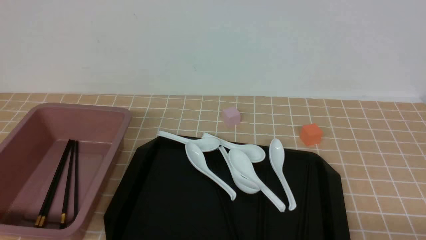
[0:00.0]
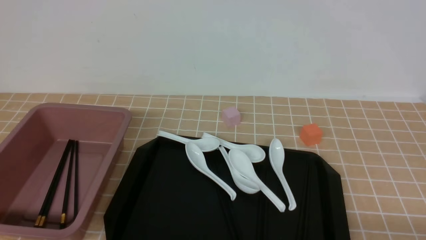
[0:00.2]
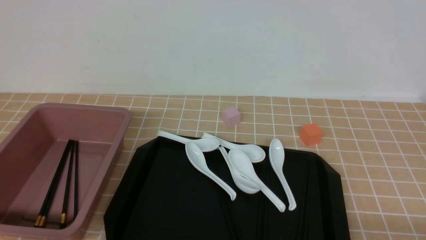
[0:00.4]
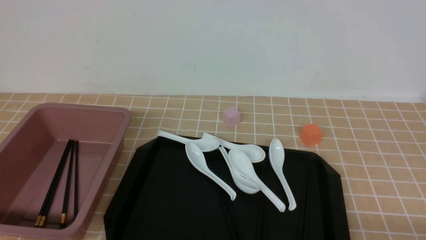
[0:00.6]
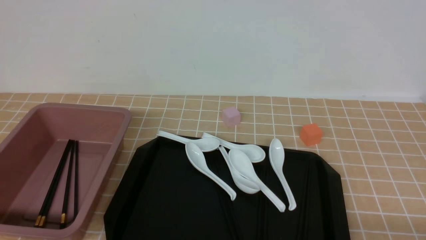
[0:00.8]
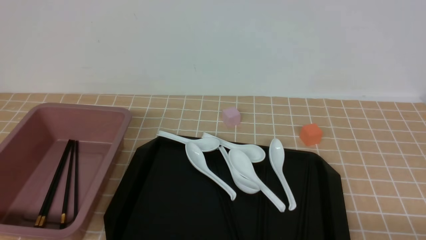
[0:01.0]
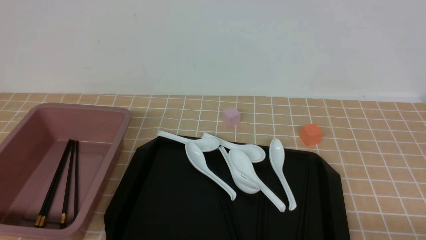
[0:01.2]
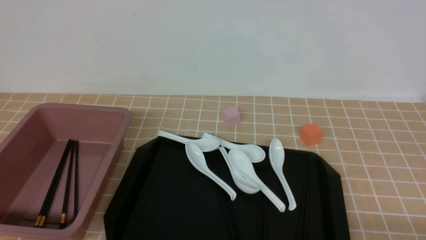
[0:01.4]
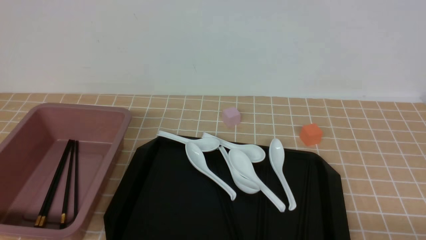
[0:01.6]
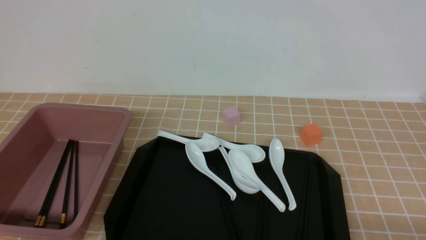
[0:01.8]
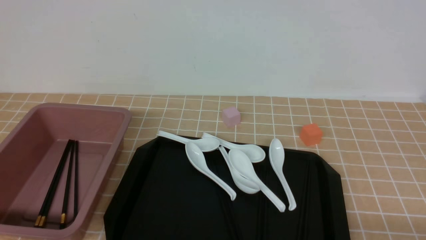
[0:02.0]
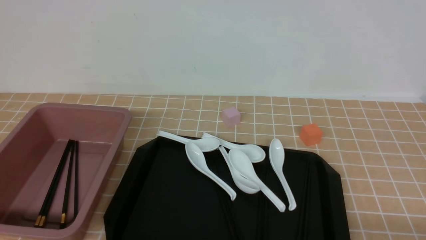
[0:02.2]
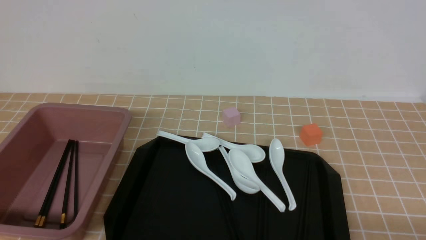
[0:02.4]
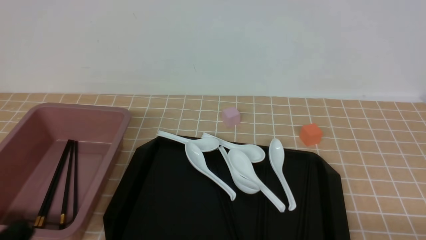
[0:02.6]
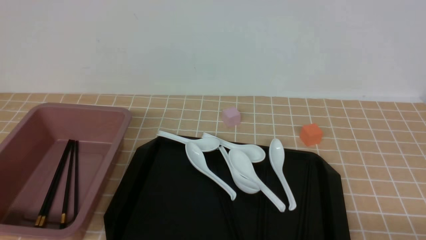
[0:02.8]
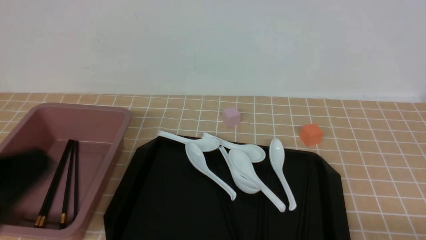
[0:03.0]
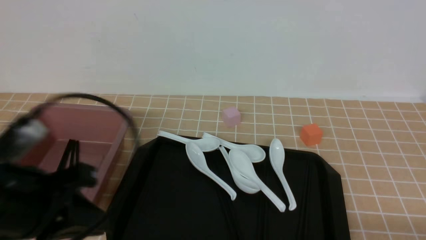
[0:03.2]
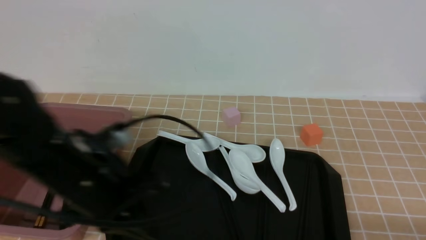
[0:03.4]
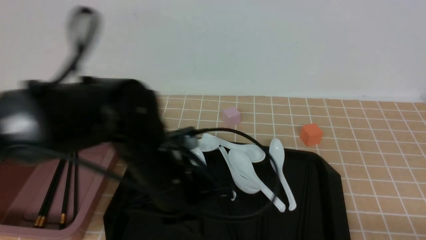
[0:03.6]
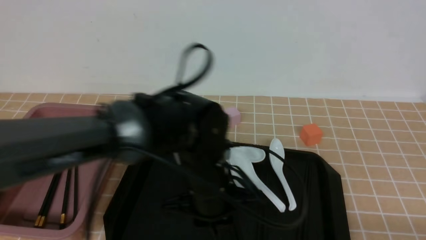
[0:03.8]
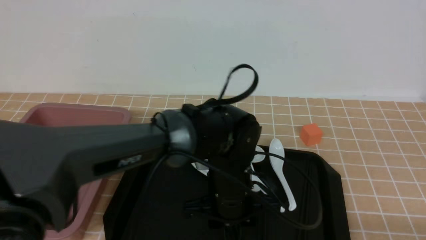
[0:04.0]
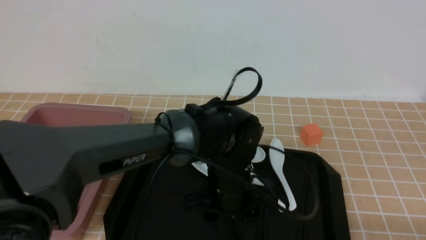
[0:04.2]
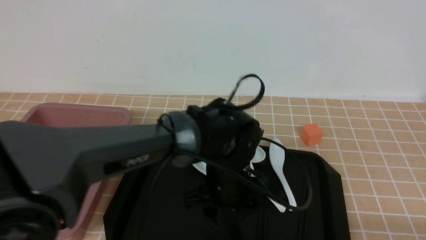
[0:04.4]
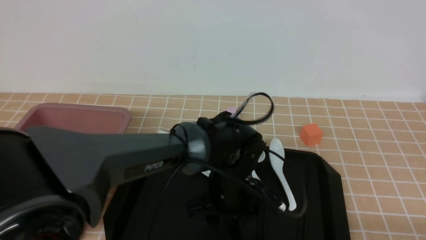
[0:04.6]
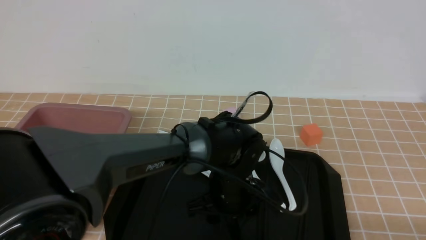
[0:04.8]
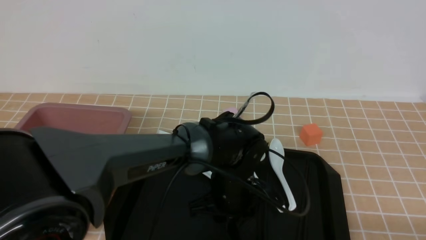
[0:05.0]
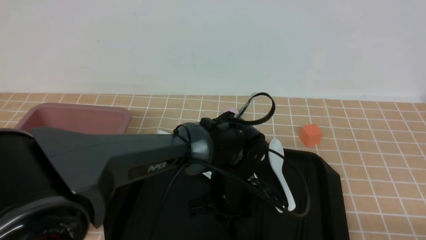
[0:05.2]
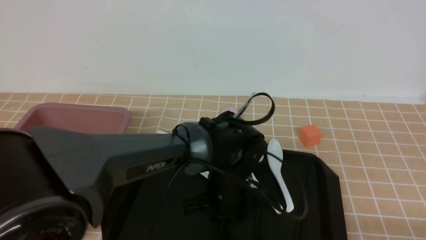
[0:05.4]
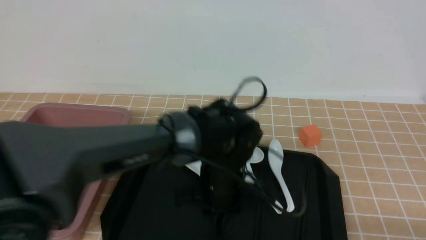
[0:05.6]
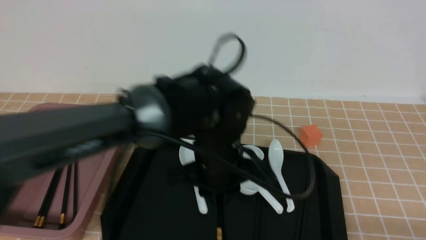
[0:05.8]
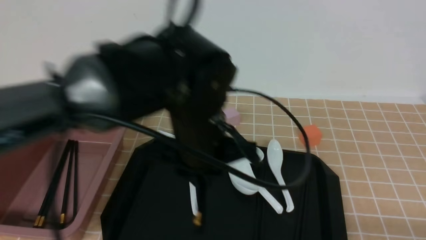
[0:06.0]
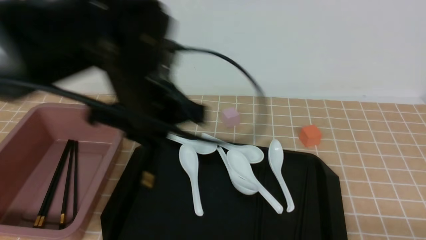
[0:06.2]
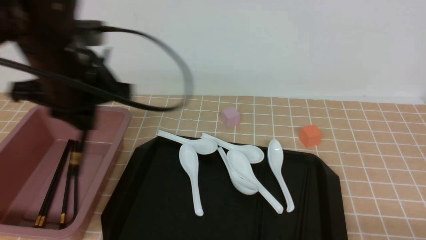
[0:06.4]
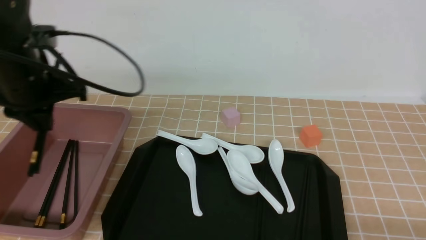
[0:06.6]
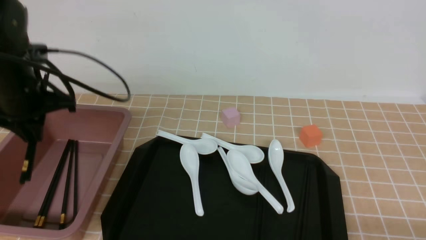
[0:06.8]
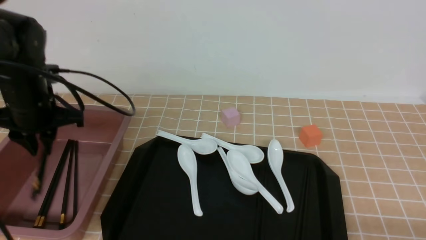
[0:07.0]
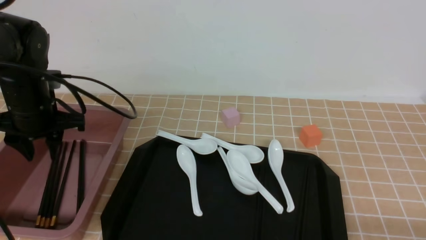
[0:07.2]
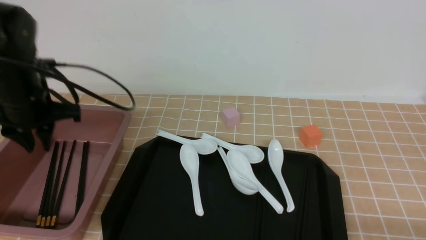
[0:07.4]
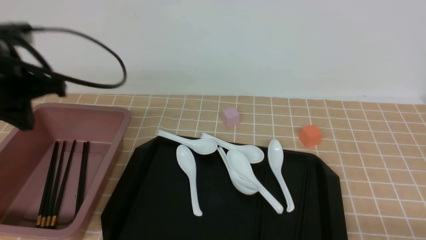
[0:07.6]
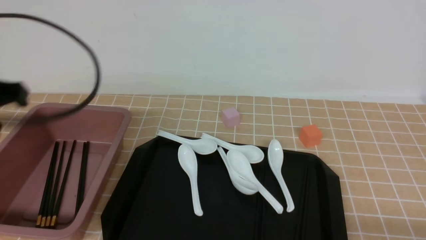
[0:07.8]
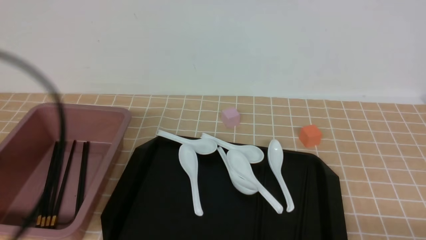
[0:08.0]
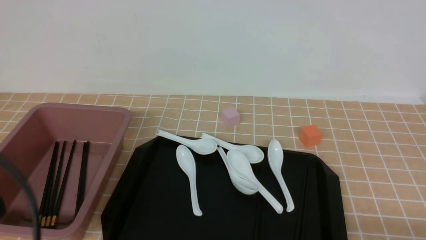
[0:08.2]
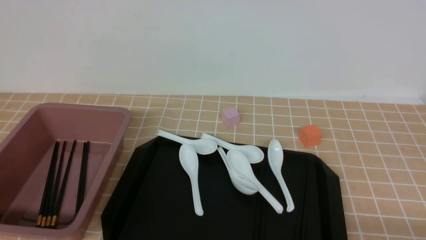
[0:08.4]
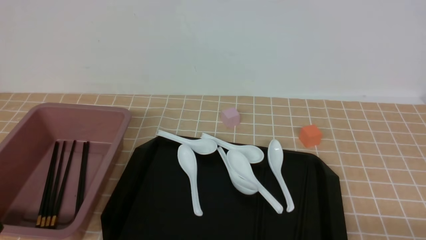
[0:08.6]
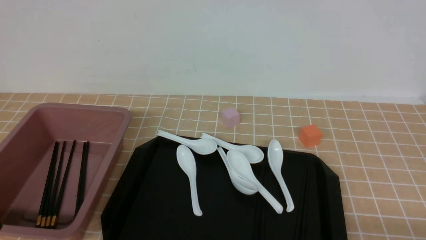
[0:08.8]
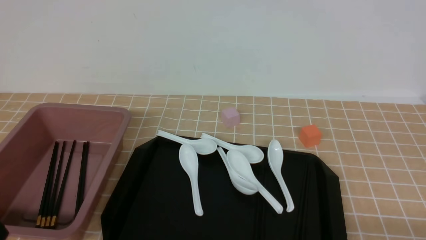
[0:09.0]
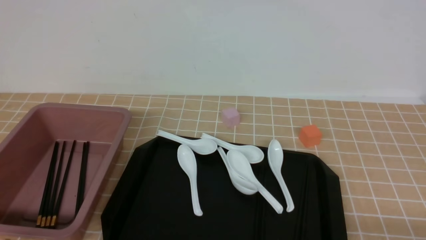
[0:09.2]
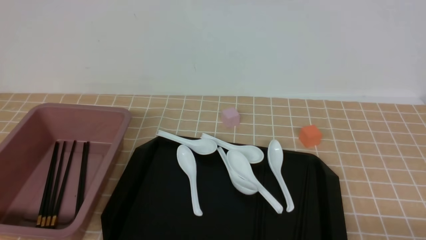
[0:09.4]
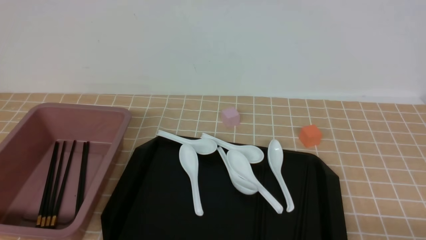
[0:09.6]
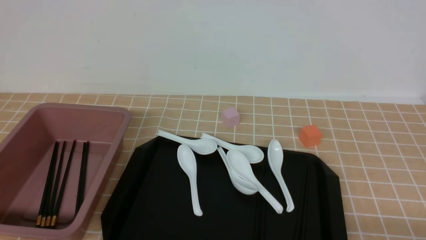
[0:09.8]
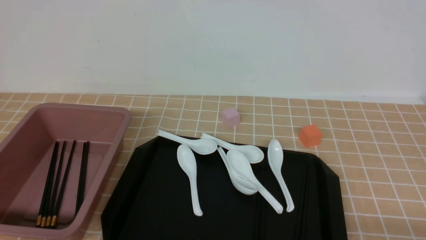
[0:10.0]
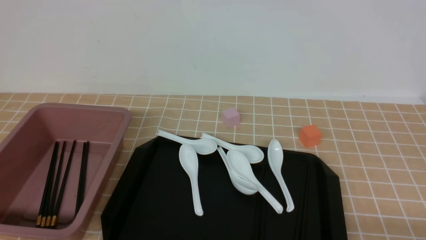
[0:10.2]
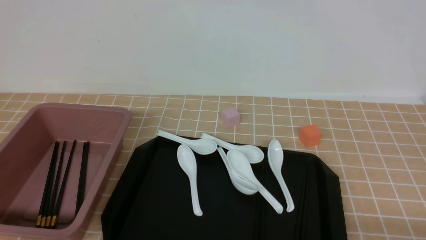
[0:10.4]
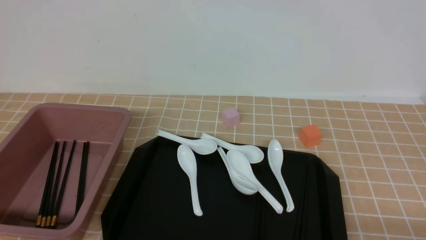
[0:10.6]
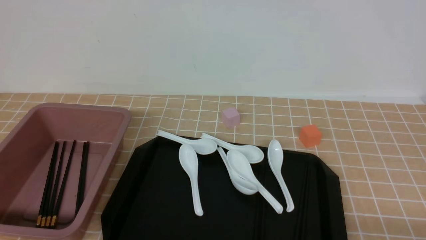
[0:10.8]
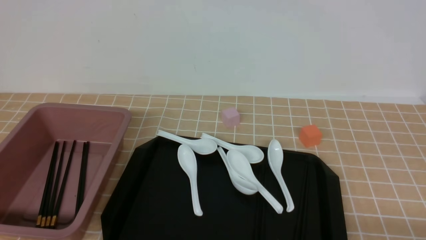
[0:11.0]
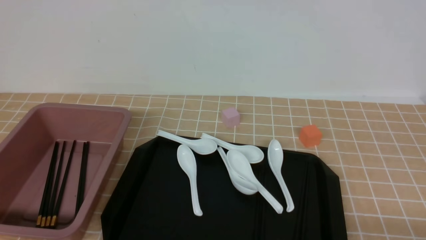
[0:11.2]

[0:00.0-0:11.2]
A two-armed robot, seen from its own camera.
Step, 0:00.0 to 0:06.0: use the left arm to grab a pair of chopsticks.
Step, 0:06.2 to 0:07.6: use the left arm to put the chopsticks into the lunch box.
0:01.6 to 0:03.2: The left gripper travels upward by roughly 15 cm.
0:03.2 to 0:04.8: The left gripper goes some 35 cm to the right, forward and downward, and opens its fingers.
0:04.8 to 0:06.4: The left gripper shifts roughly 25 cm upward and to the left, and closes its fingers.
0:06.4 to 0:08.0: The left gripper heads to the left and backward, covering about 20 cm, and opens, then closes again.
0:08.0 to 0:09.6: The left gripper is displaced downward and backward by about 25 cm.
0:09.6 to 0:11.2: Neither gripper changes place.

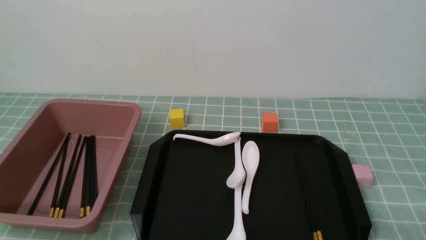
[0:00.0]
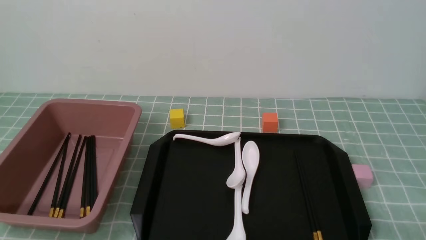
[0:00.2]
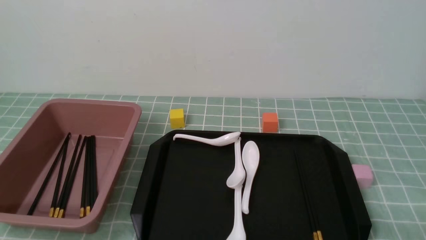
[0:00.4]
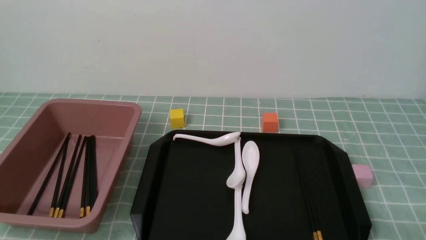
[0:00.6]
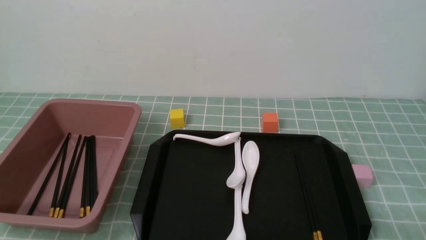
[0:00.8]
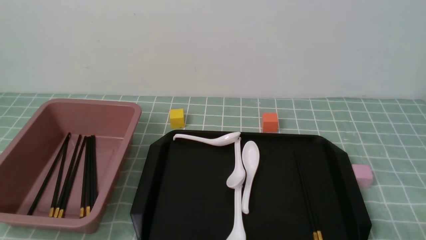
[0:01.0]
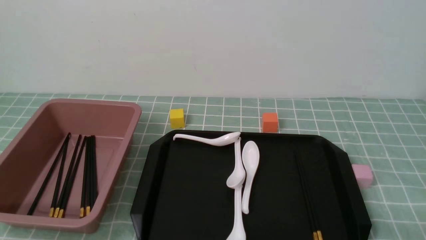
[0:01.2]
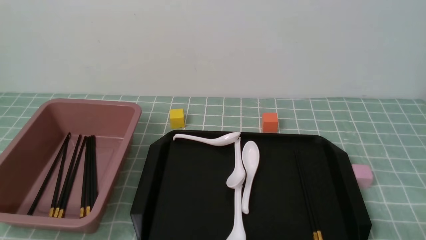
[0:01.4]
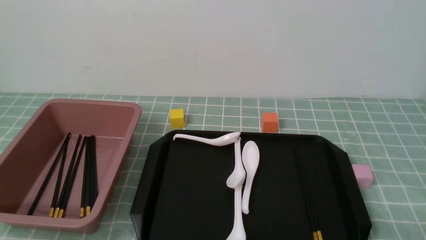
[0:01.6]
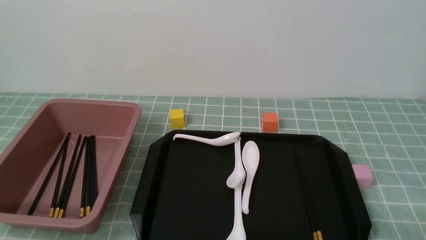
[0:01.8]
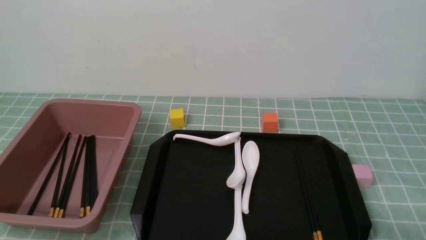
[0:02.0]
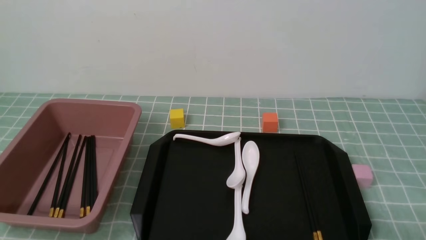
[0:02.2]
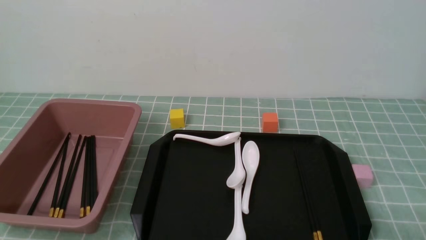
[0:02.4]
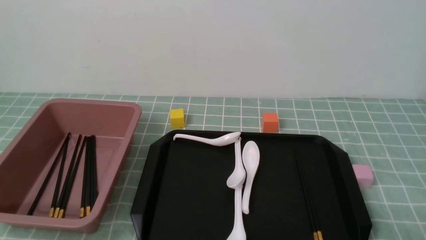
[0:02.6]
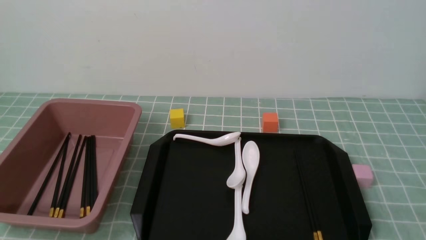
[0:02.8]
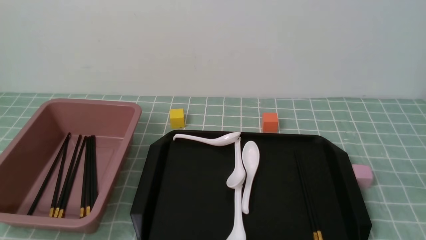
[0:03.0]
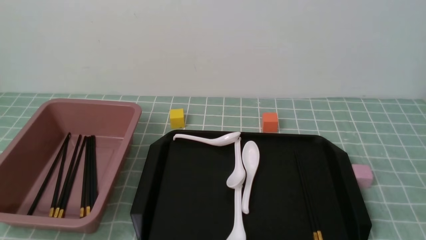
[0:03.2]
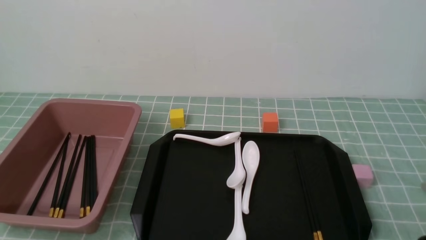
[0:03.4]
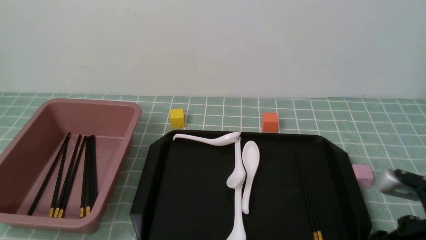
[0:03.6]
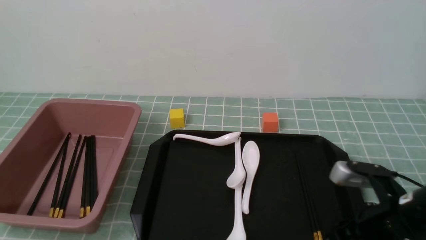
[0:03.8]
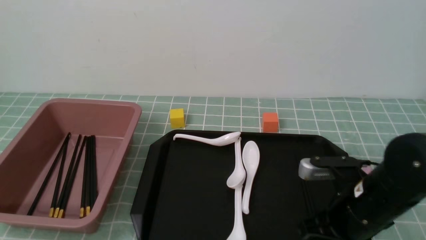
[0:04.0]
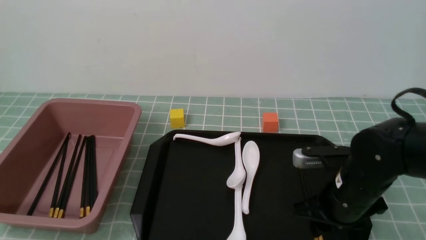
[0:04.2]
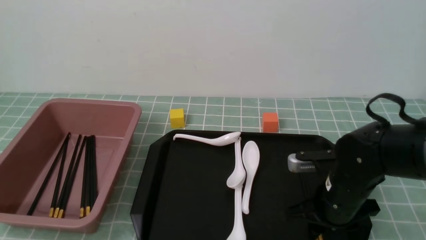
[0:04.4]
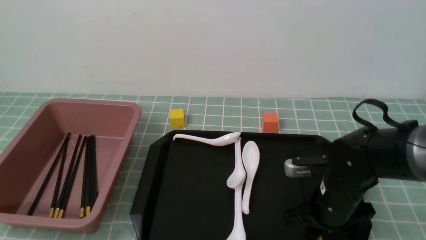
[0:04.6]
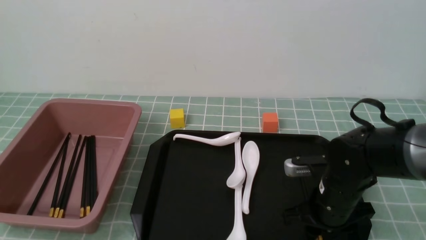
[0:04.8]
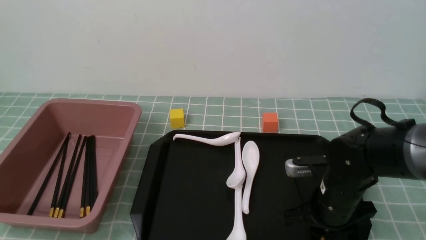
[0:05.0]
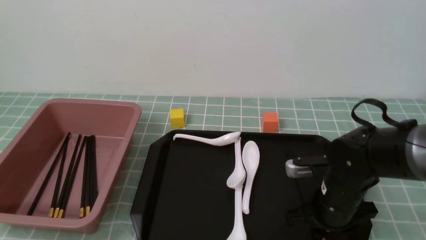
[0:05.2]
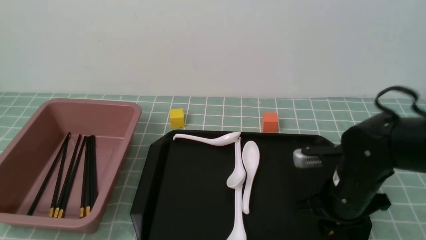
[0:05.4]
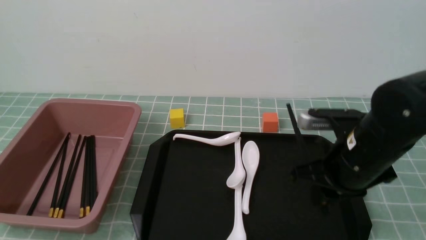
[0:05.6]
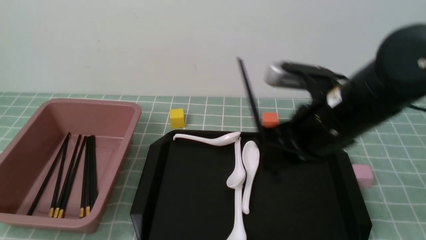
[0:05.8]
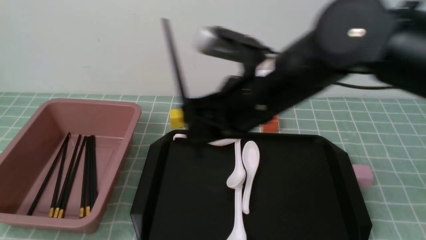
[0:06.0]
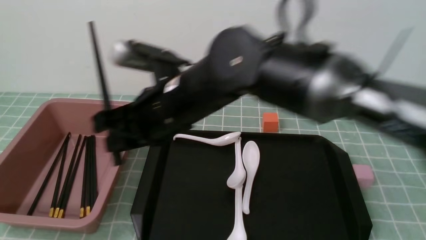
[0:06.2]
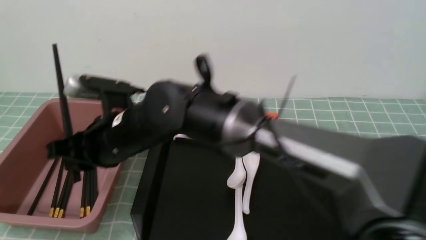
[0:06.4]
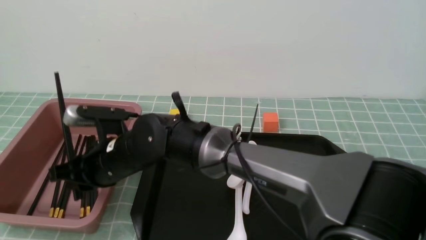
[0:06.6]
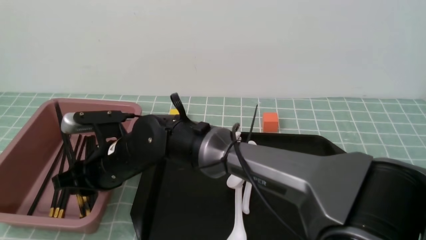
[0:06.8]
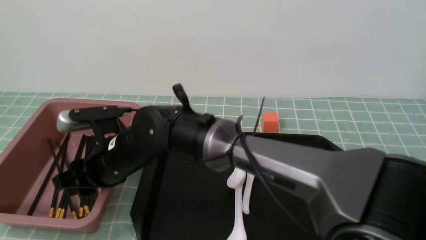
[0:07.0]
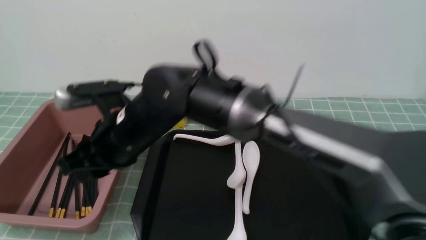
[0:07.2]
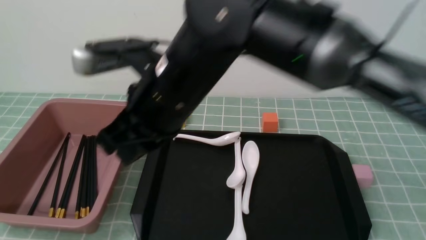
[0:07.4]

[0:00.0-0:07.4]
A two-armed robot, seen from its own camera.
Step, 0:00.0 to 0:05.8: use the right arm to grab a pair of chopsticks.
Step, 0:06.0 to 0:07.0: use the right arm to put the chopsticks into the lunch box.
0:00.0 to 0:01.4: Both grippers stay put.
0:03.0 to 0:04.4: The right gripper is displaced forward, to the left and downward by some 25 cm, and opens its fingers.
0:04.4 to 0:06.0: The right gripper shifts about 20 cm upward and to the left, and closes its fingers.
0:06.0 to 0:07.4: The right gripper is displaced to the left by about 5 cm, travels downward and back again, some 10 cm each way, and opens, then closes again.
